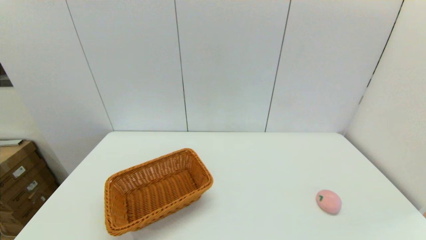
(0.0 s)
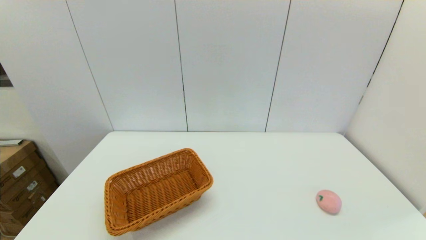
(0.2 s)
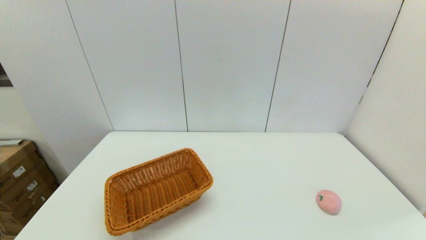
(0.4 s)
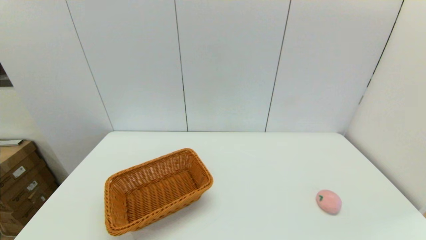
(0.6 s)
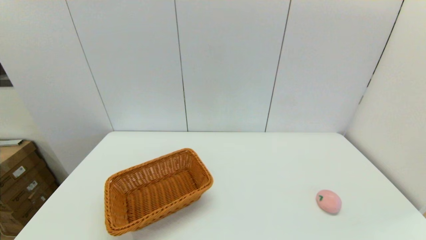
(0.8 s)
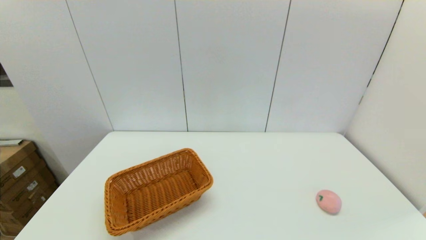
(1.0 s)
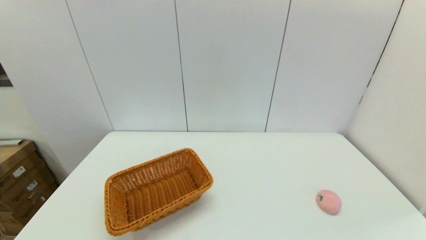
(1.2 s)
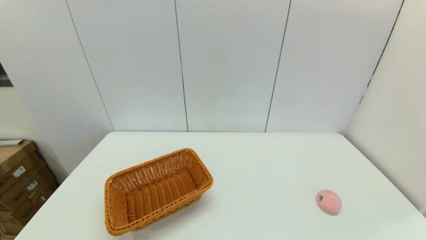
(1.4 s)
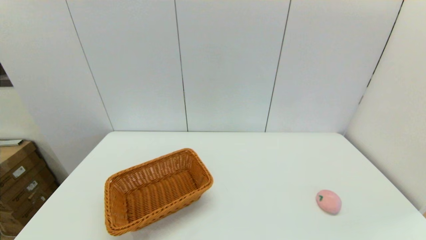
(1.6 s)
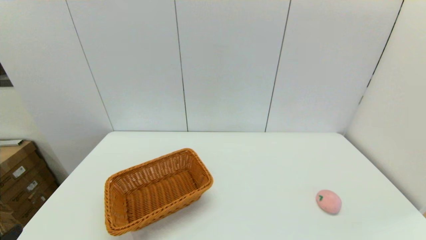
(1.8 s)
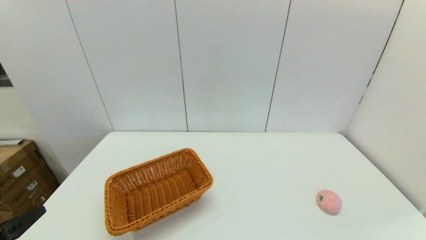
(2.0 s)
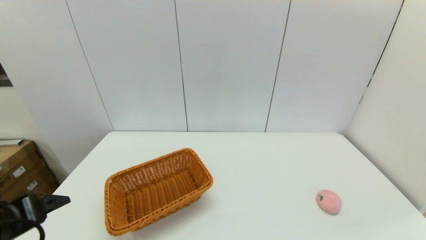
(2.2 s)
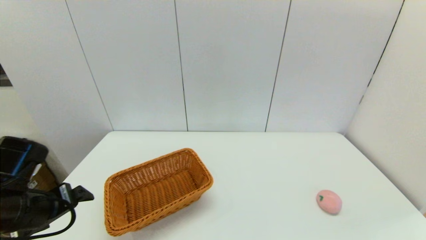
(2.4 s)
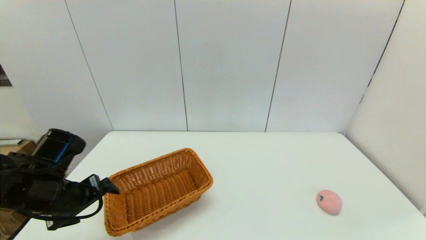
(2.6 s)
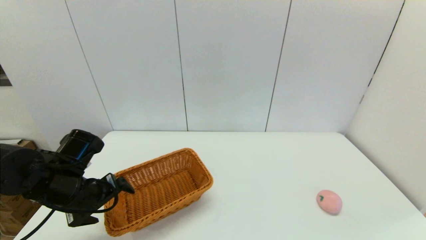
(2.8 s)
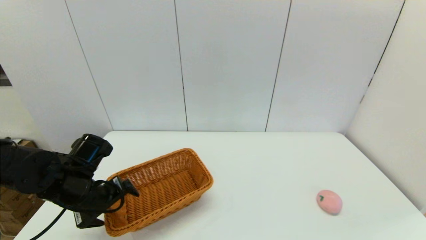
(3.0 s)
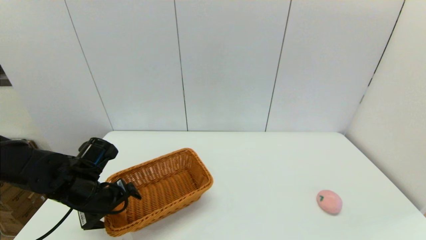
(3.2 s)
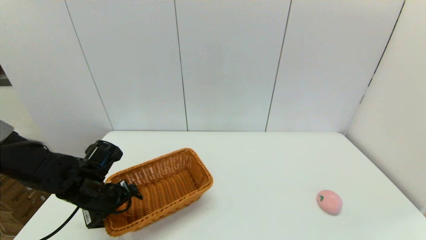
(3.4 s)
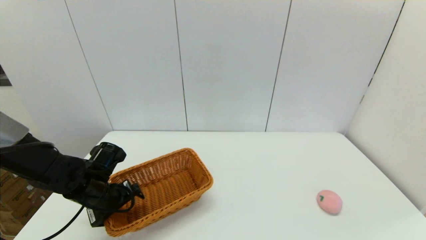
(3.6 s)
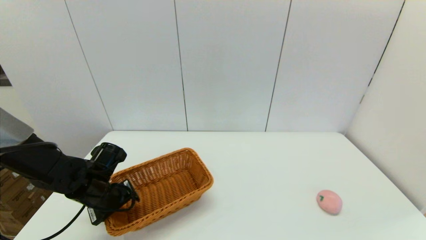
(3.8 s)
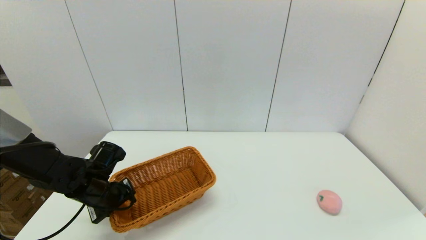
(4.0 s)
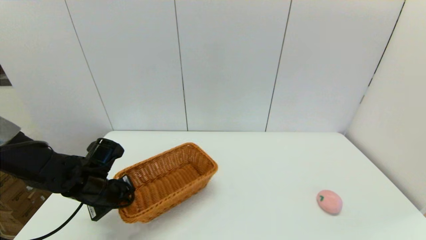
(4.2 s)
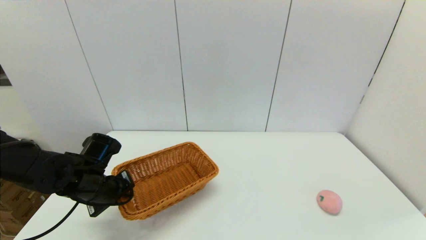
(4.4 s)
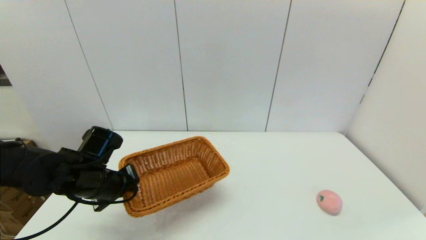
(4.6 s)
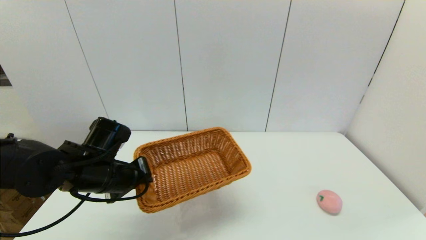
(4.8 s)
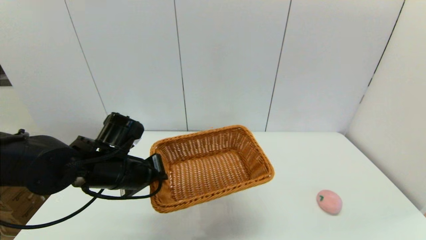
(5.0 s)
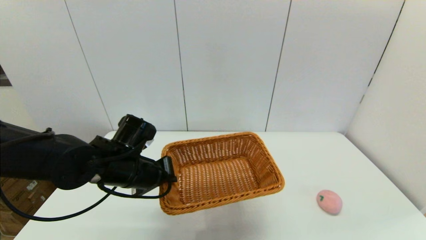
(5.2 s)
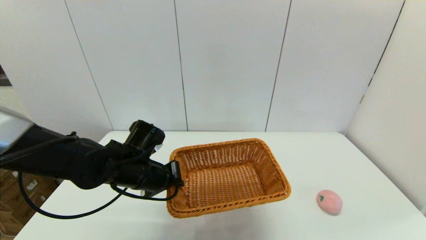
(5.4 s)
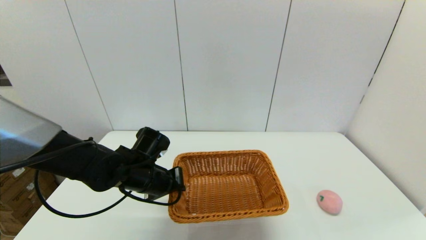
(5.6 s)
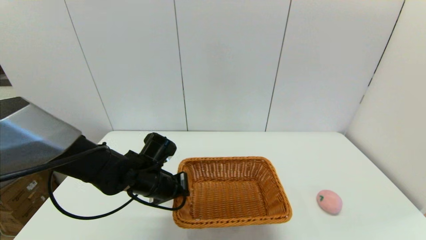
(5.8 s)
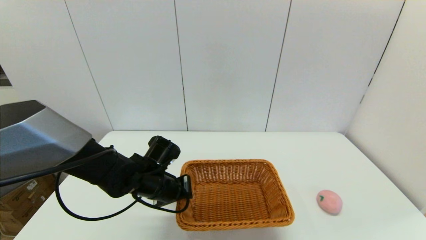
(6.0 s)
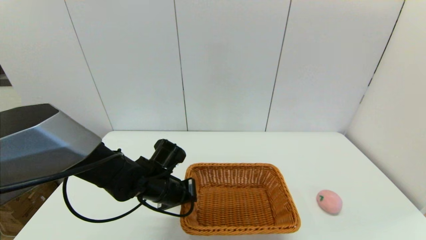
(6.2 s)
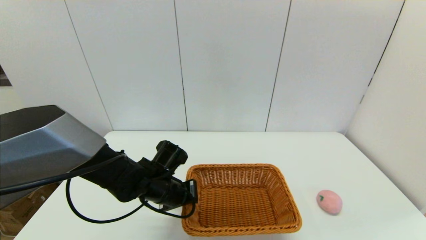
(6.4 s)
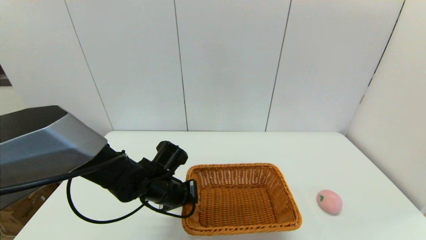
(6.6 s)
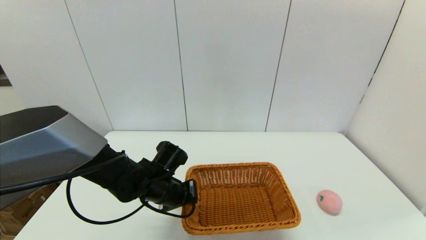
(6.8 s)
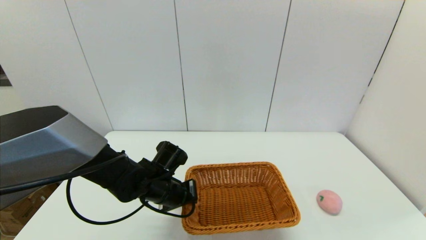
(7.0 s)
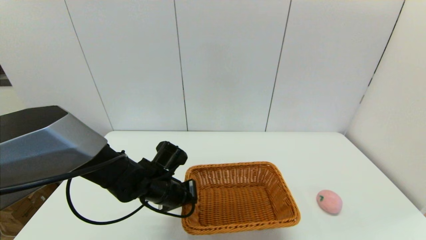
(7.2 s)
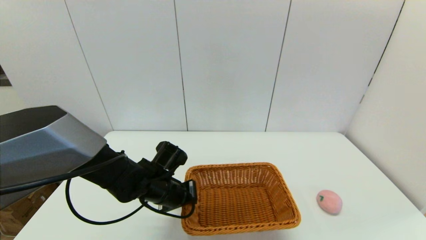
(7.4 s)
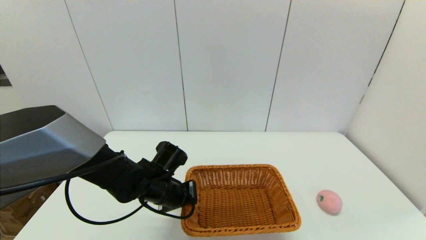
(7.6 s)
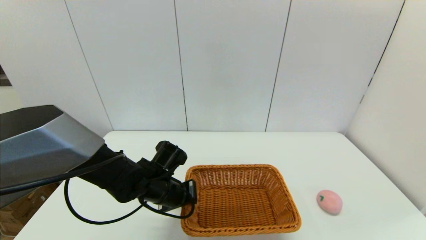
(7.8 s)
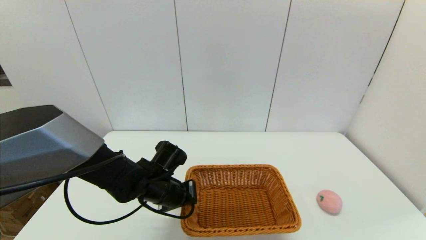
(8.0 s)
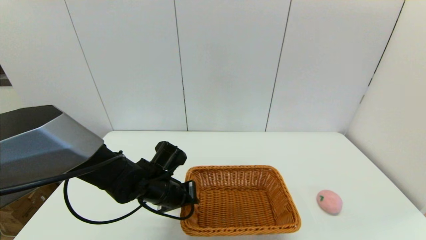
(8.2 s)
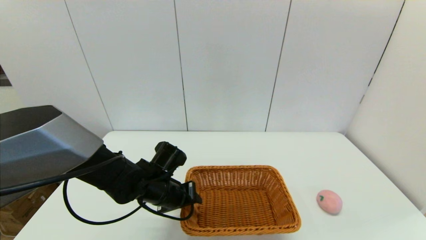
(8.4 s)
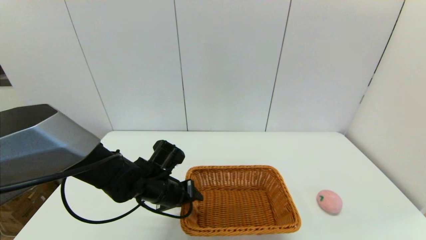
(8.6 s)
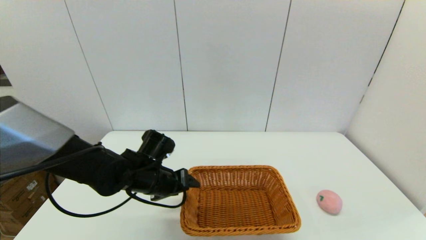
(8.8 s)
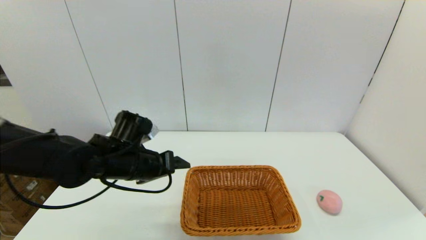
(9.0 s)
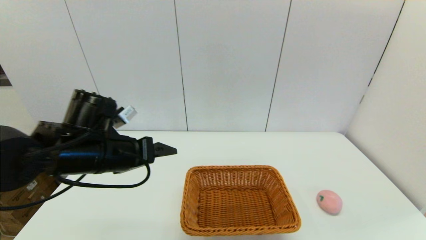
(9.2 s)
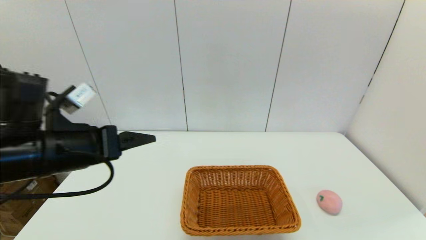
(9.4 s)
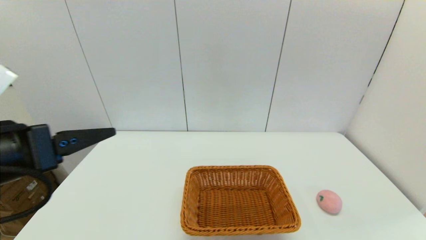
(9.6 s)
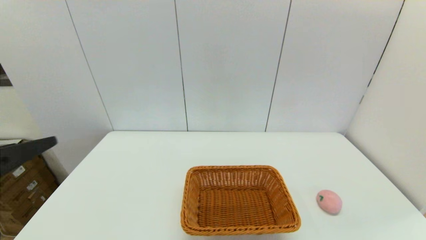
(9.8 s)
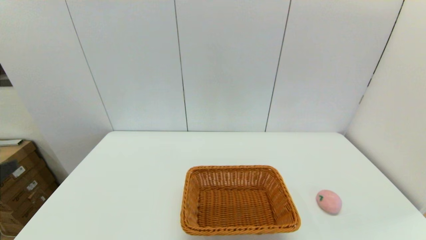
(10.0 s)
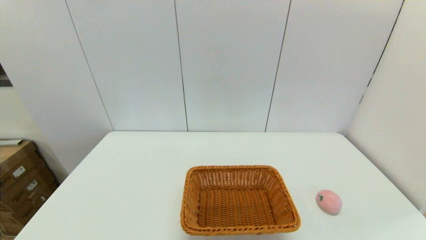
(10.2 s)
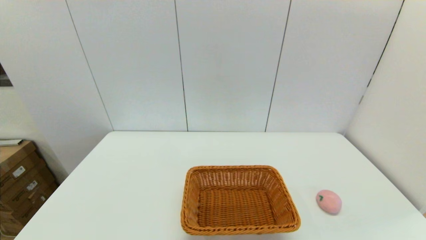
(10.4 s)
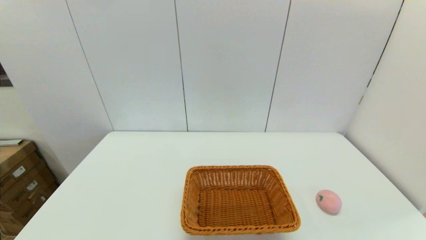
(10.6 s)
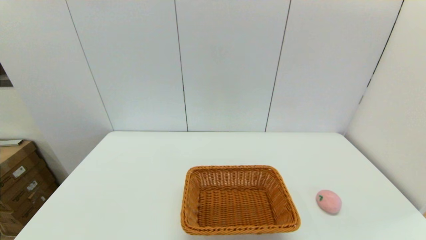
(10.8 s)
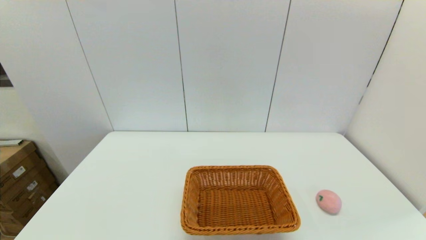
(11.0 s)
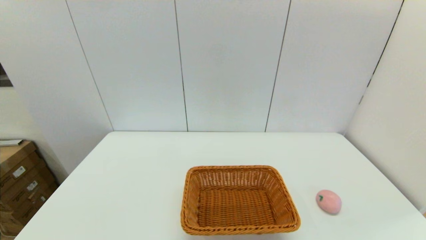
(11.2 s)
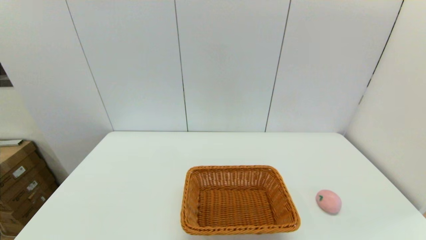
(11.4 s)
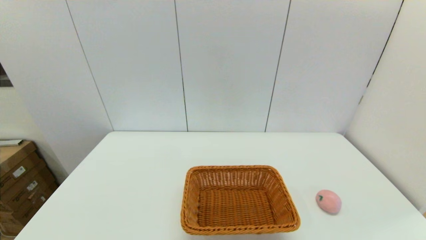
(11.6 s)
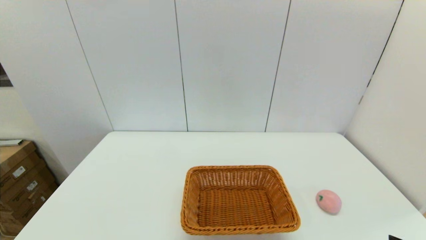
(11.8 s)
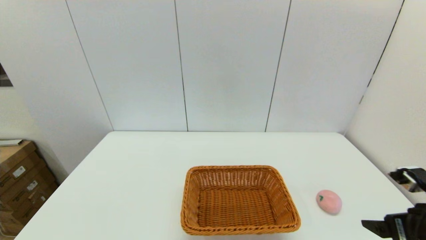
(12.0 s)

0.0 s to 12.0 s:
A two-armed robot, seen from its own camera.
Step, 0.0 to 4.2 s: Grasp the light basket with the left gripper.
Step, 4.4 to 8.6 s: Place the light basket on the middle of the table with the left gripper.
1.6 to 3.0 s: The left gripper goes approximately 25 cm forward.
3.0 to 4.4 s: The left gripper closes its fingers.
4.4 to 6.0 s: The left gripper moves to the right, some 10 cm.
6.0 to 7.6 s: The grippers stay close to where they were, moving slightly.
7.6 to 9.0 s: The left gripper travels upward and to the left by some 10 cm, and opens.
9.0 to 10.4 s: The left gripper shifts some 30 cm backward and to the left.
10.4 to 12.0 s: The right gripper goes about 20 cm forward.

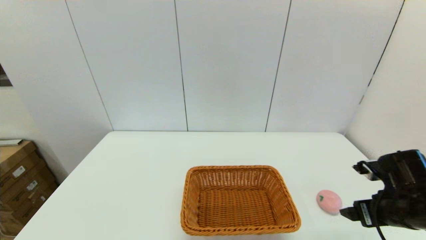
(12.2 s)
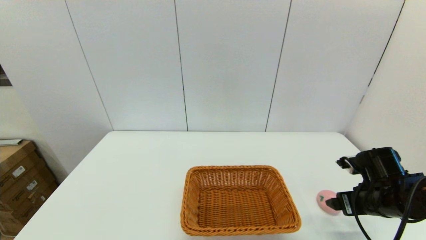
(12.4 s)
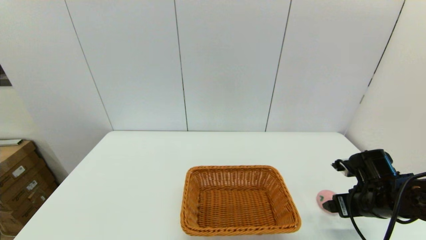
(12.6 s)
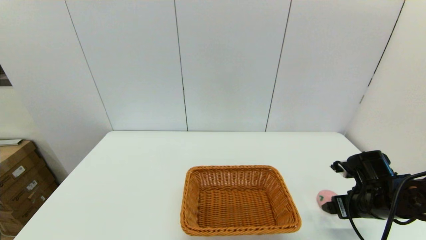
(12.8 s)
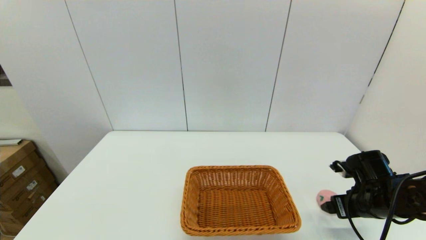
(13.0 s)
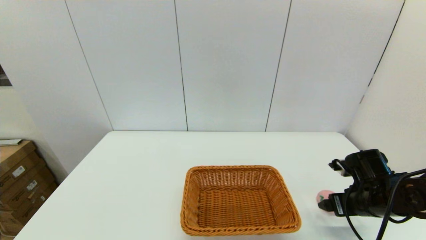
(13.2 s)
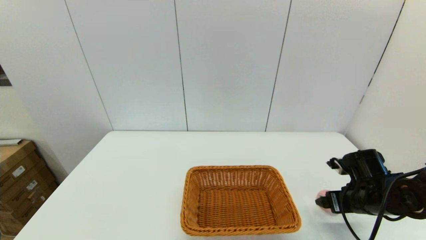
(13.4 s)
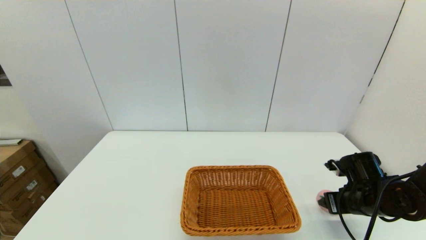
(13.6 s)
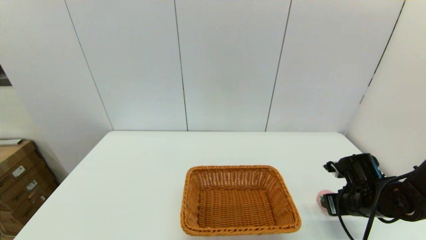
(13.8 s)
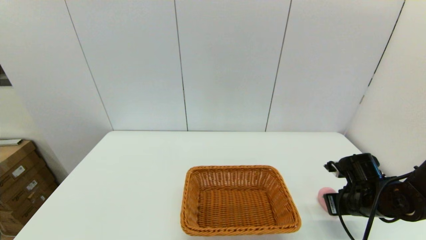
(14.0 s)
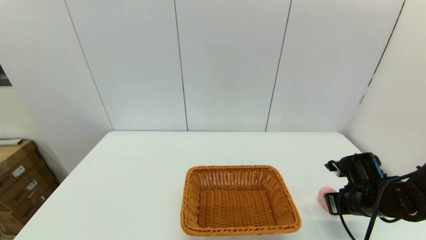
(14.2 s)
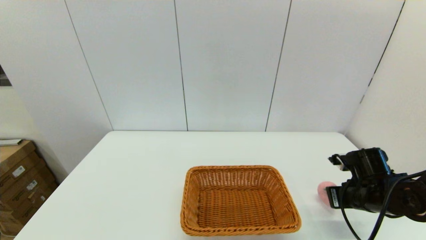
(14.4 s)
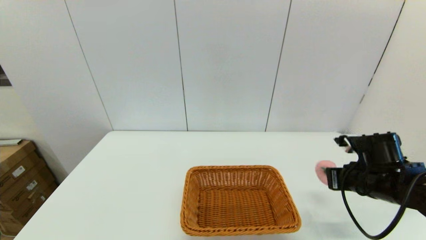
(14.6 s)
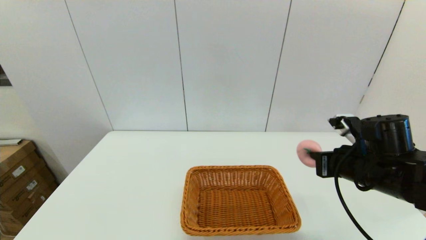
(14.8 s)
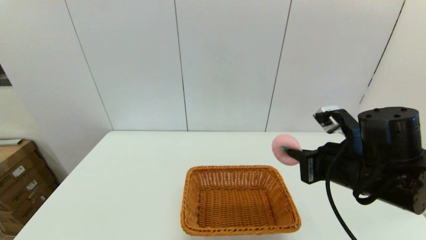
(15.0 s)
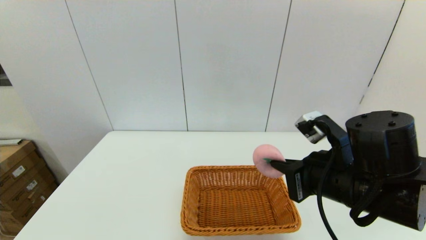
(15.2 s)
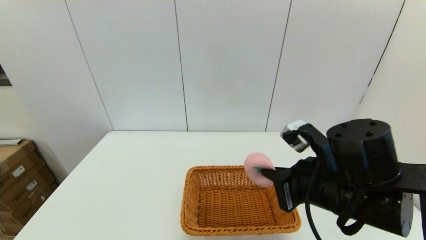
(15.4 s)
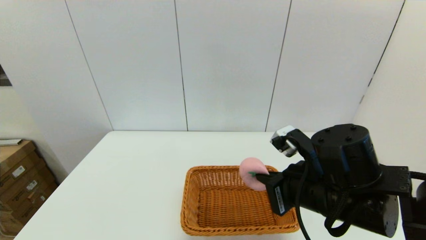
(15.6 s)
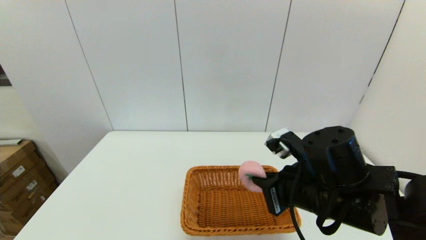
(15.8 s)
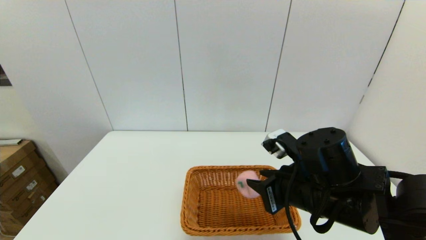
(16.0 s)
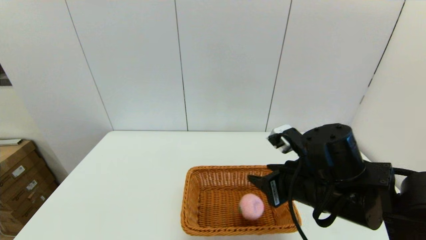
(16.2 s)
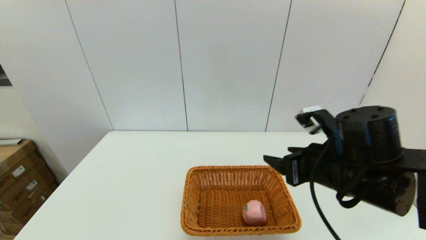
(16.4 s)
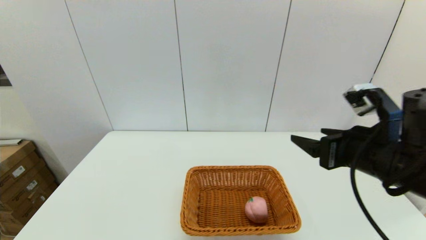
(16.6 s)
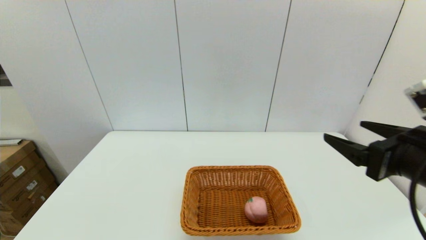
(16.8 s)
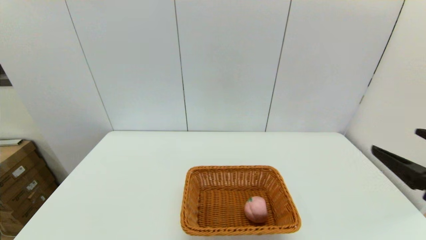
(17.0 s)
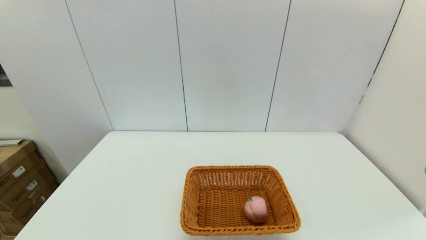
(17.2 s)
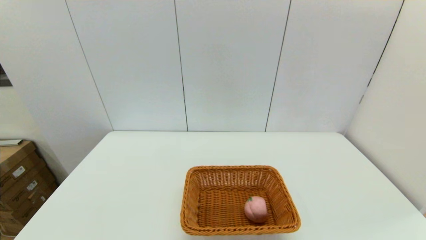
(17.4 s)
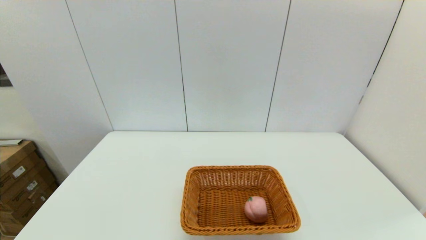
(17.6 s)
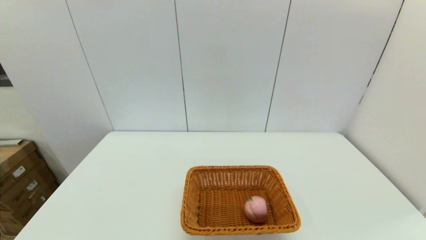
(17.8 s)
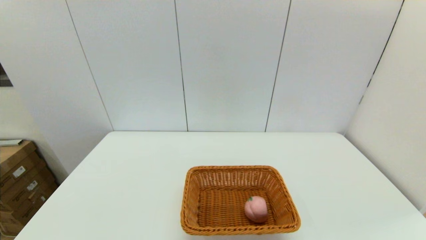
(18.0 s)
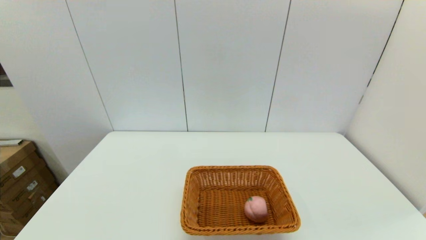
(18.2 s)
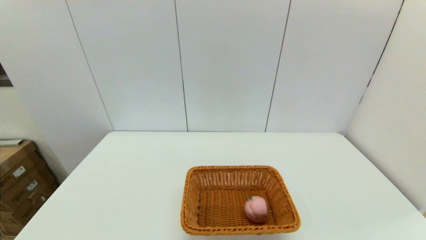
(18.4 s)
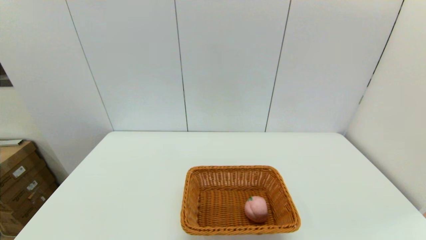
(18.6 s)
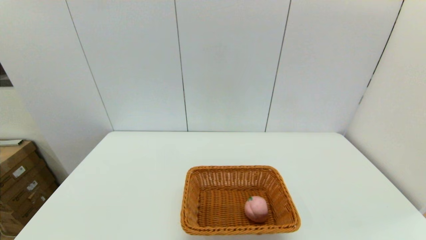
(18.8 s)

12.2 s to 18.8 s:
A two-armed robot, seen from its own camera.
Step, 14.2 to 16.2 s: Place the peach into the light basket with the right gripper.
12.2 to 13.8 s: The right gripper goes some 10 cm downward and forward, and closes.
13.8 to 15.4 s: The right gripper heads to the left, upward and backward, covering roughly 25 cm, and closes its fingers.
15.4 to 17.2 s: The right gripper shifts about 20 cm to the right and backward, and opens up.
